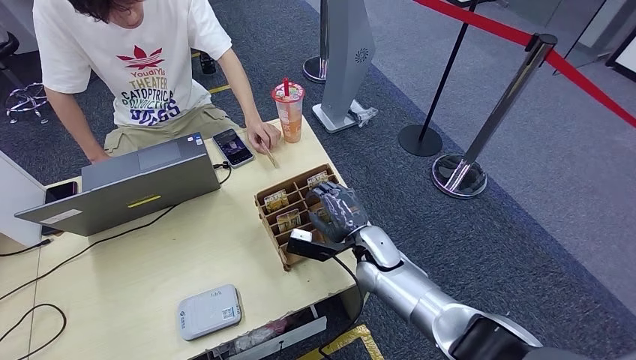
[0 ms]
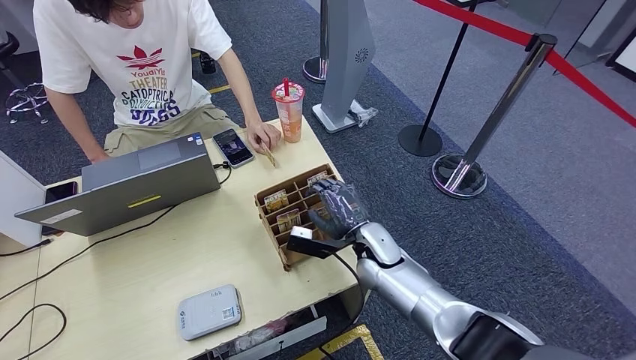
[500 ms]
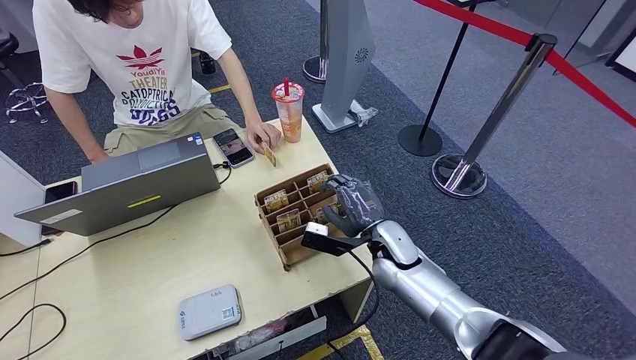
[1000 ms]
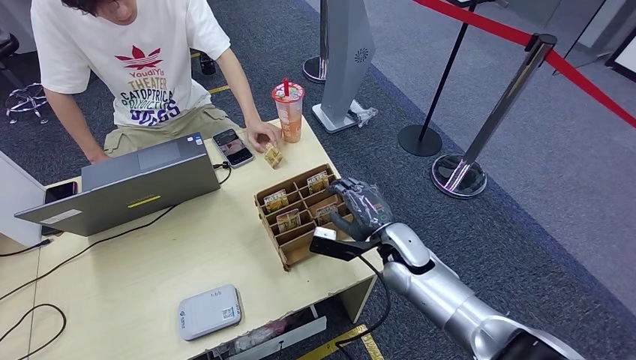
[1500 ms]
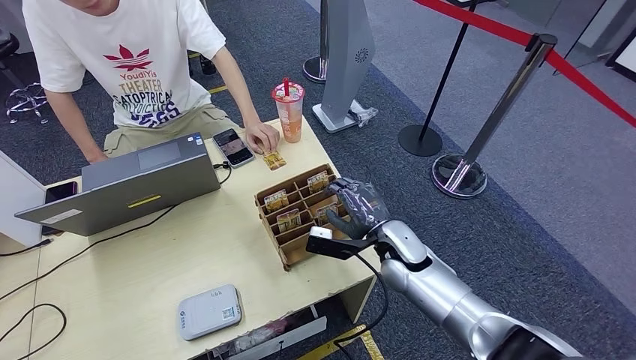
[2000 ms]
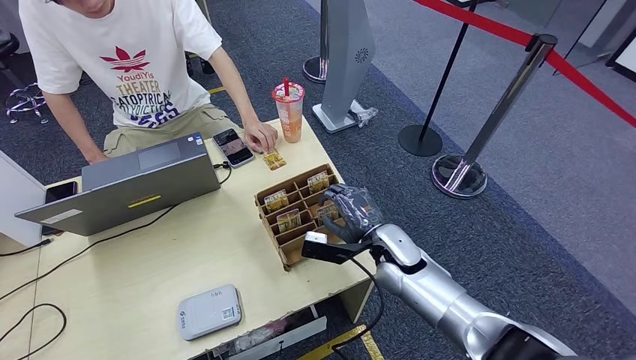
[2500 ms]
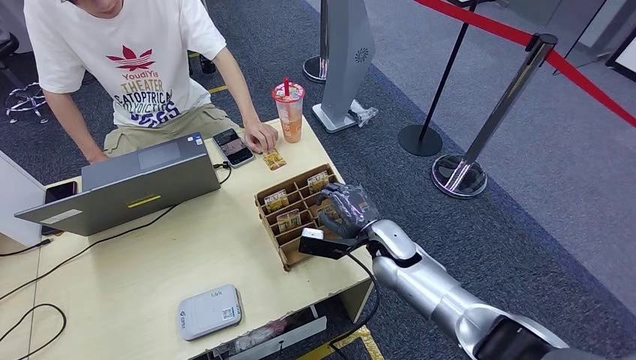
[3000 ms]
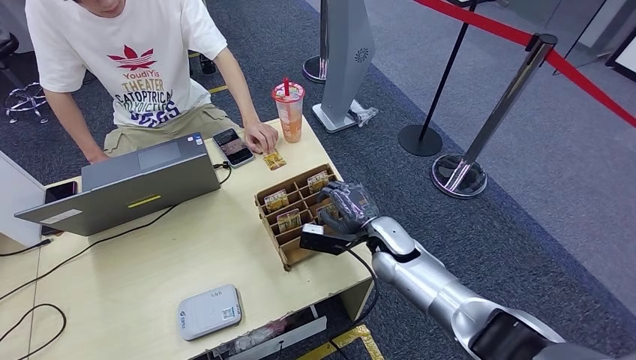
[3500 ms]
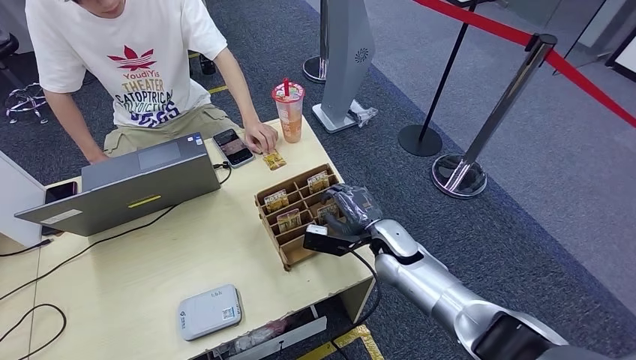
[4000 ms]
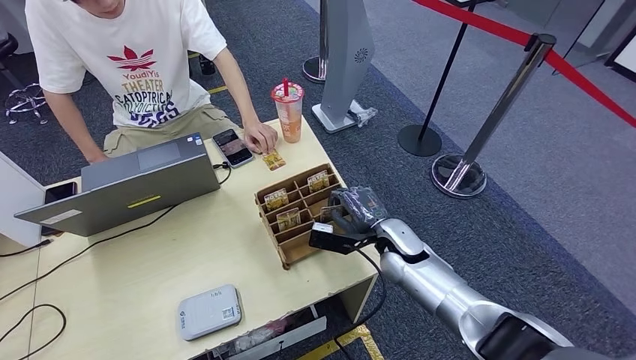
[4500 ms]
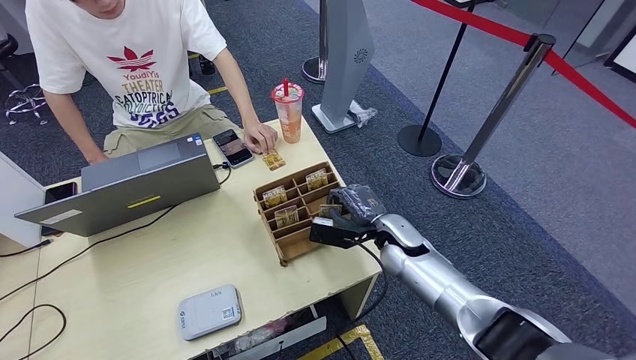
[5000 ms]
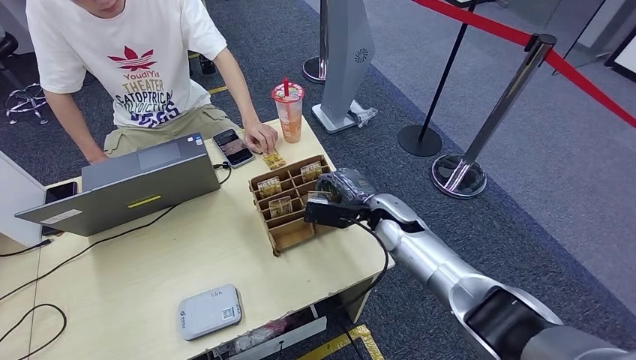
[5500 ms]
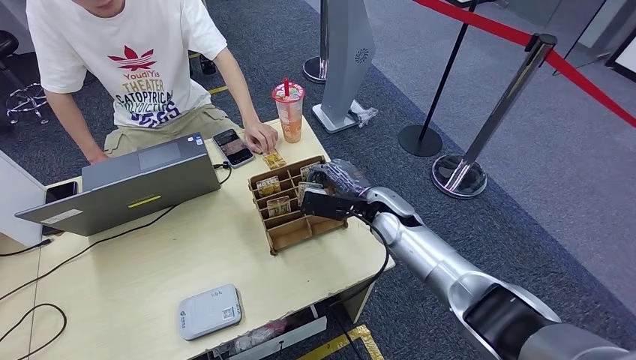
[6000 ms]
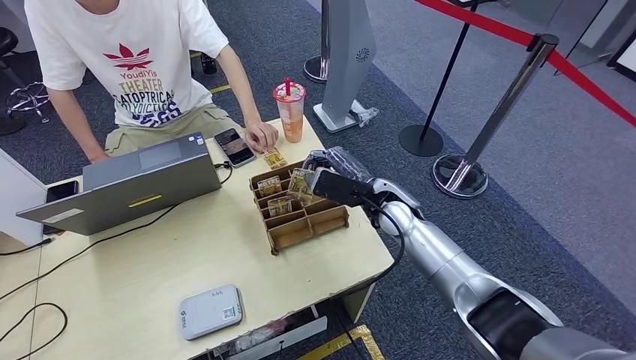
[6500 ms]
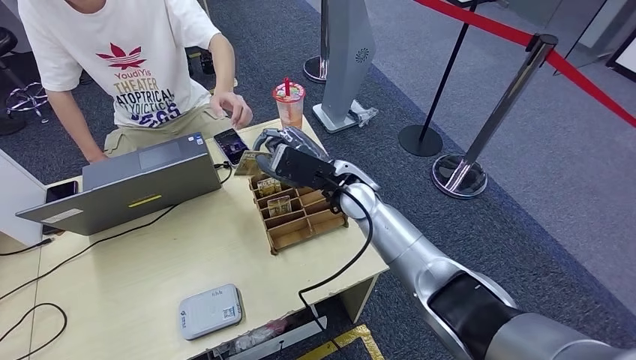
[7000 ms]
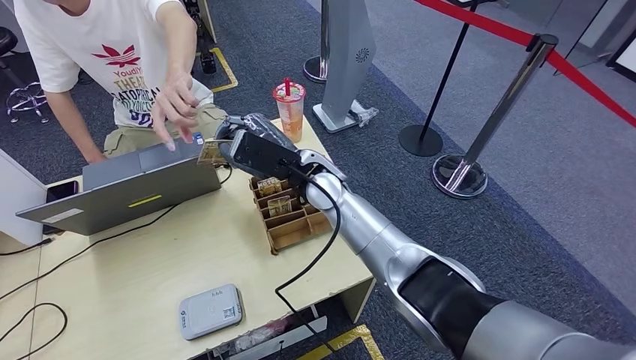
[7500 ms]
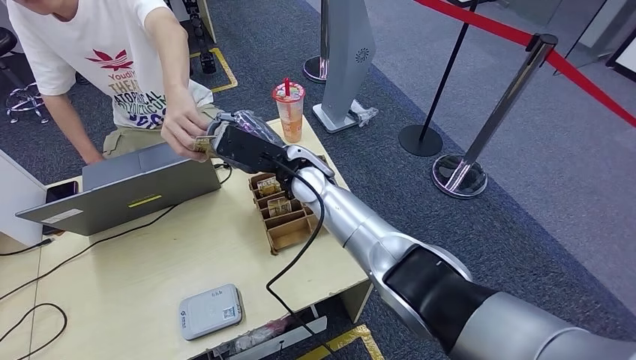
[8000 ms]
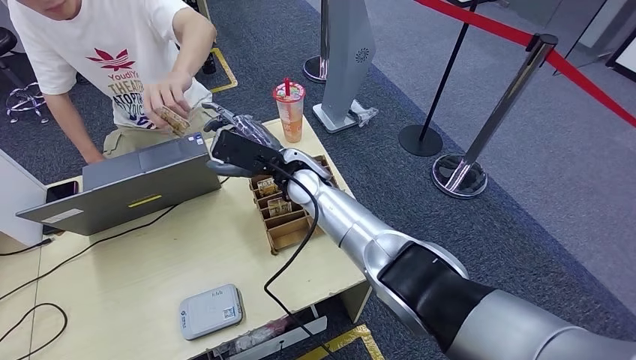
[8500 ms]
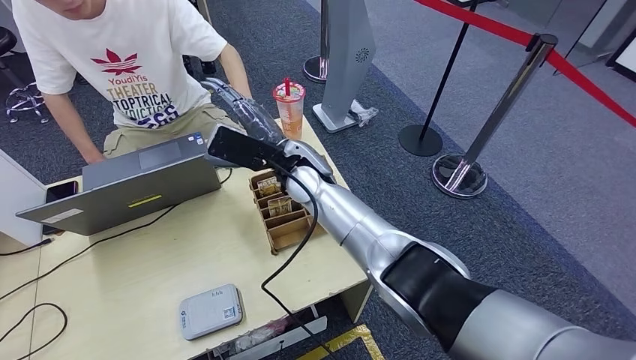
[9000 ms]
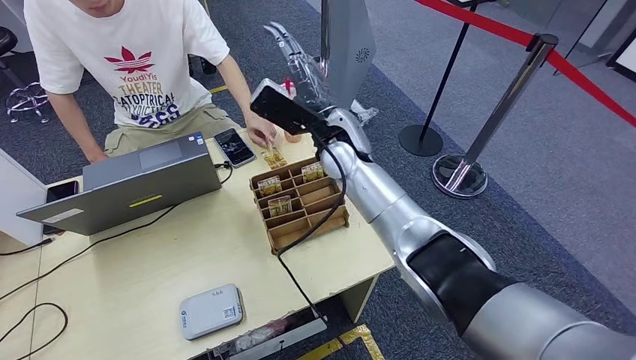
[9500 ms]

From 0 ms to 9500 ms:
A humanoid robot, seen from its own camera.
Step, from 0 ms to 6500 ms: Pick up the room key from the key card box.
Step, from 7000 ms to 9500 ms: Hand the room key to the person.
From 0 ms to 2000 ms: The right hand changes place by about 5 cm.
From 2000 ms to 4000 ms: The hands move only a little.
From 4000 ms to 5500 ms: The right hand changes place by approximately 5 cm.
From 5500 ms to 7500 ms: The right hand moves to the left, upward and forward, approximately 20 cm.
From 7500 ms to 9500 ms: The right hand heads to the right, covering roughly 5 cm.
